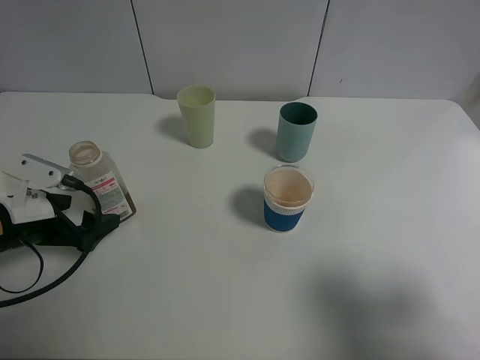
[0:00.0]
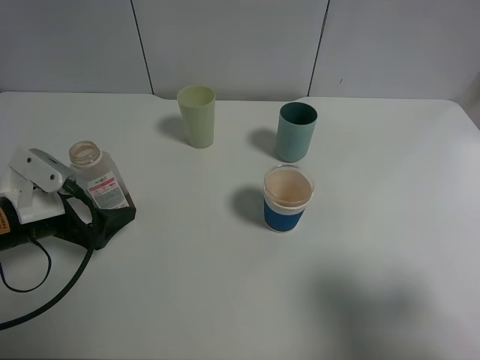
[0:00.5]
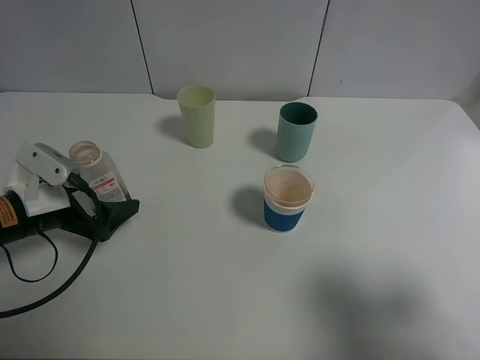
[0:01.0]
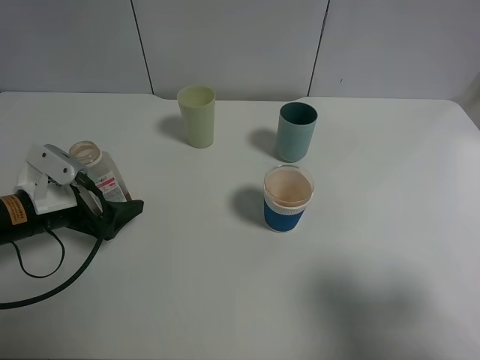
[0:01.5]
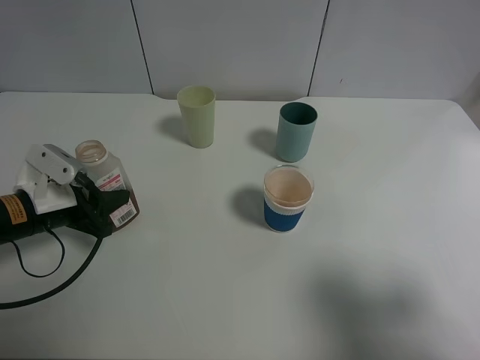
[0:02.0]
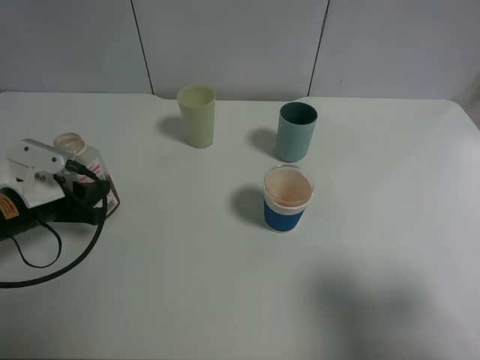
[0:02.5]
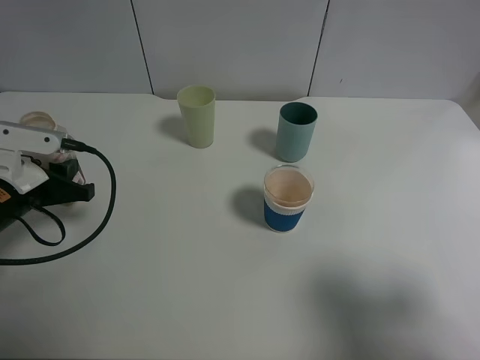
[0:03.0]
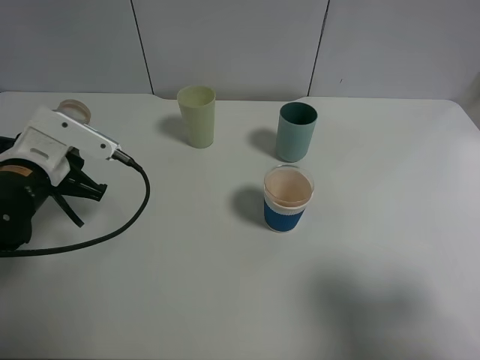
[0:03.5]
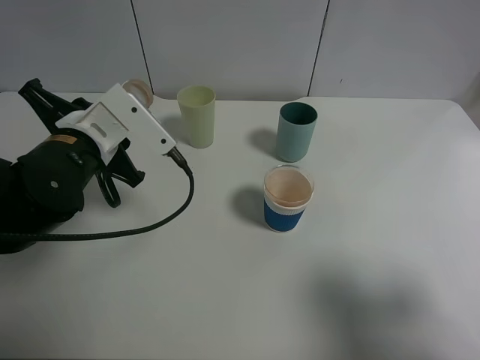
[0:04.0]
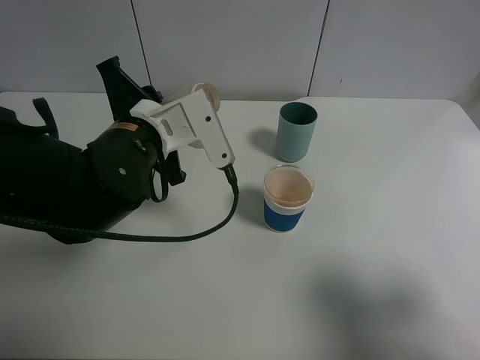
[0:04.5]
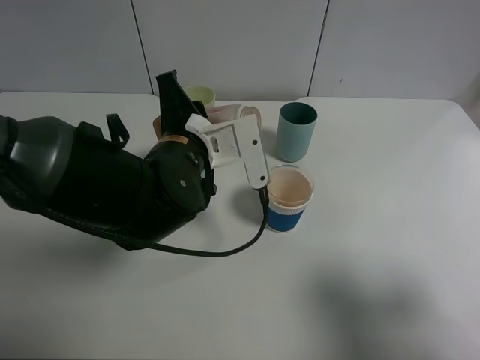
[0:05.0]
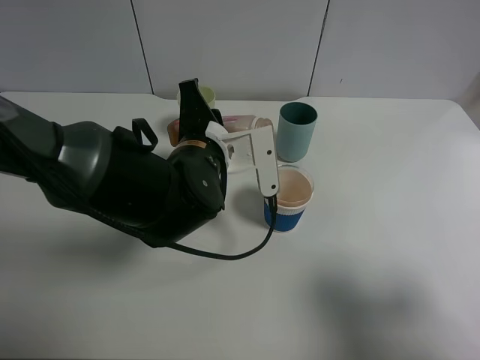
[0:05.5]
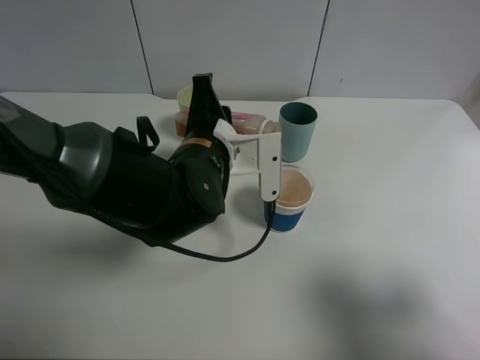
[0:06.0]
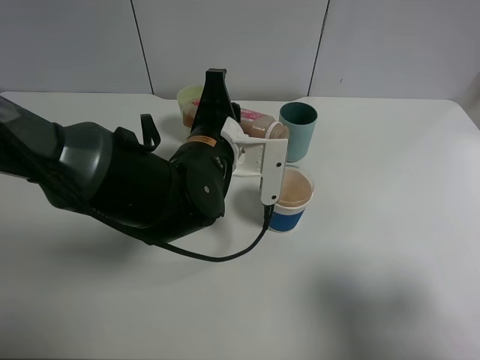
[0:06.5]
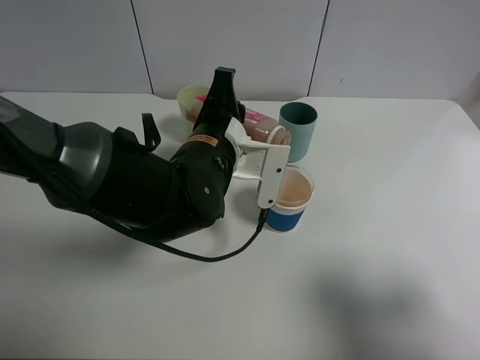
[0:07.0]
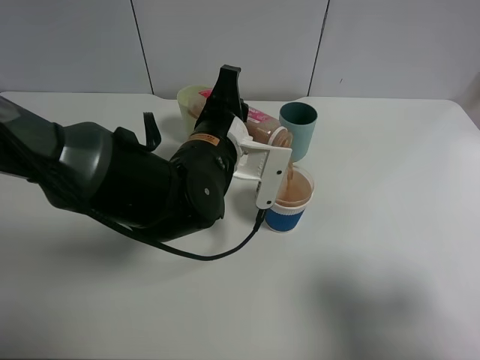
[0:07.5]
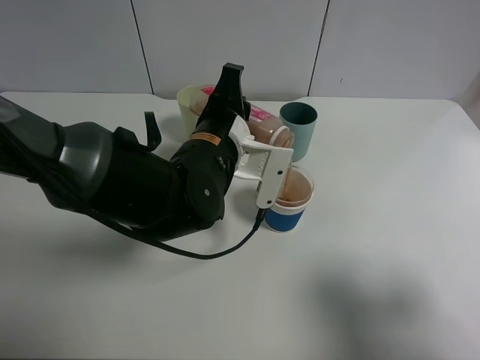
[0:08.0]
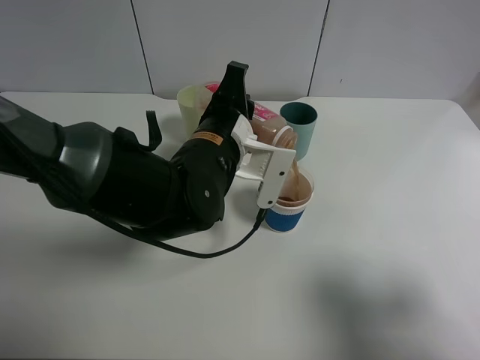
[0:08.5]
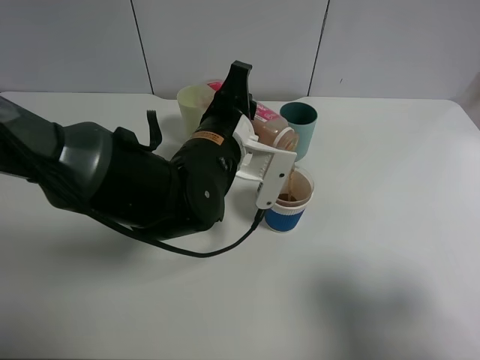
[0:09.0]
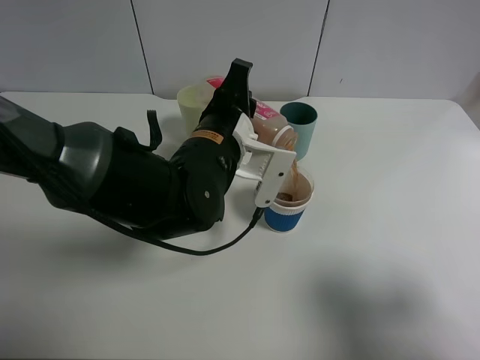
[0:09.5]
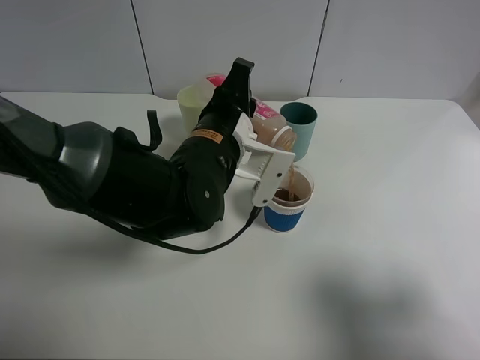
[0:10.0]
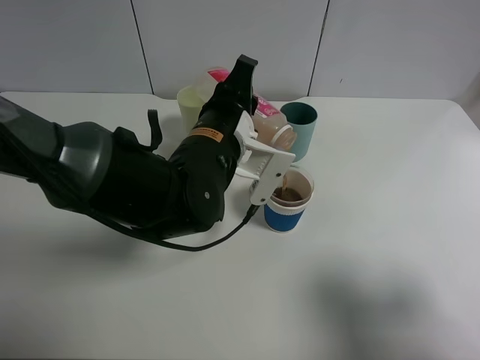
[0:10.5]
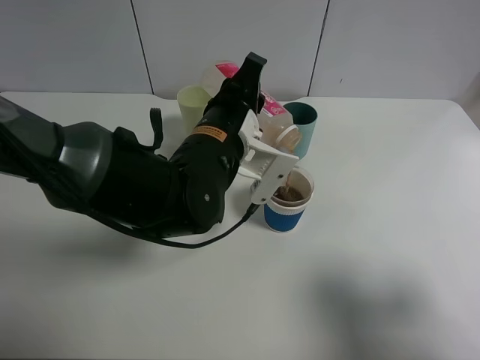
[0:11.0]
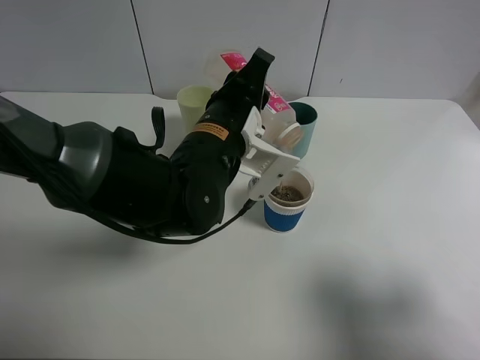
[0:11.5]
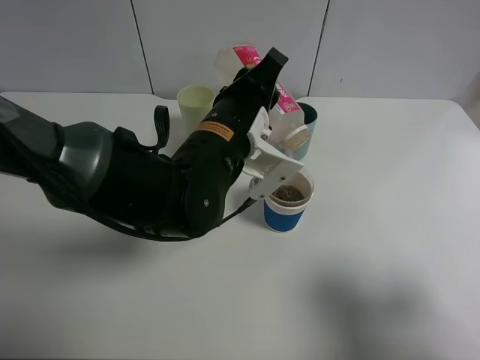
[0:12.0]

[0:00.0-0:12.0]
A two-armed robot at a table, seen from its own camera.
Task of the whole recording: use a clamp to hold the bottle of the drink, pour the beverage into a random cup, then clamp the cup containing the drink and pour the drink into another random cup.
Step, 0:00.0 to 0:02.0: Pick up the drink bottle with left gripper.
0:00.0 to 0:02.0: The left gripper closes up.
0:02.0 to 0:04.0: The left gripper heads to the right and upward, covering about 10 cm.
0:04.0 to 0:06.0: The left gripper moves to the right, roughly 15 cm.
0:06.0 to 0:08.0: The grippers move only a little.
0:08.0 to 0:10.0: The grippers move only a little.
0:10.0 to 0:12.0: There are only small adjustments of the grippers.

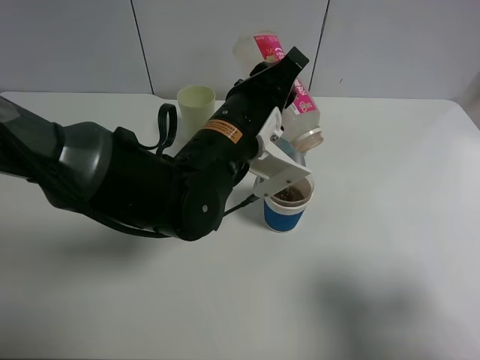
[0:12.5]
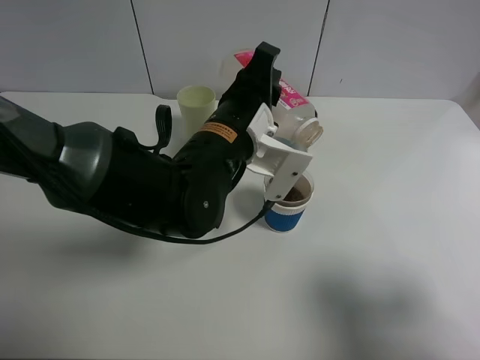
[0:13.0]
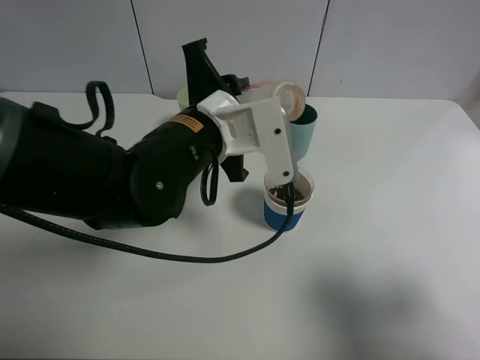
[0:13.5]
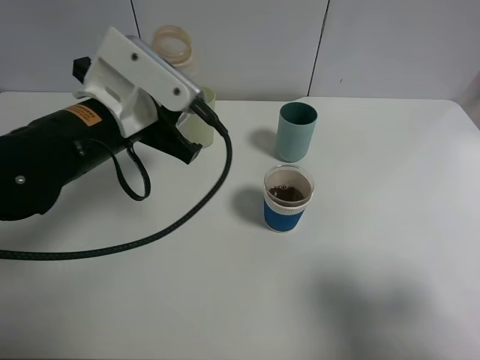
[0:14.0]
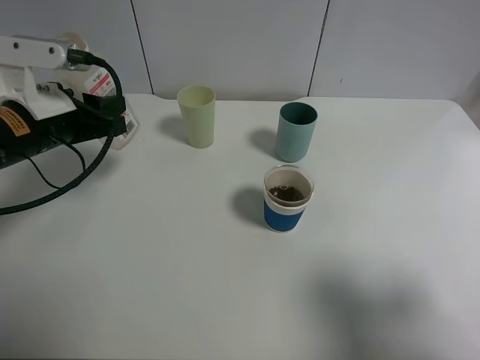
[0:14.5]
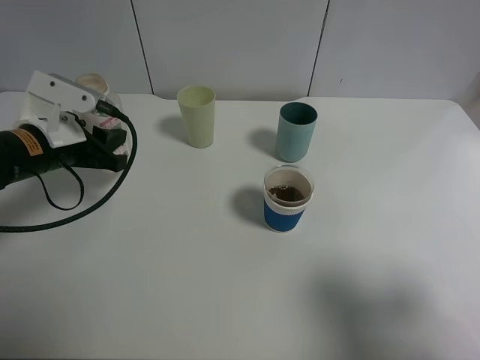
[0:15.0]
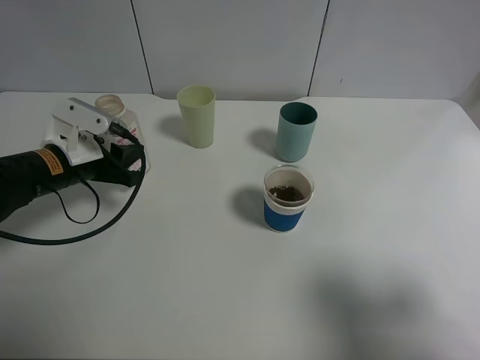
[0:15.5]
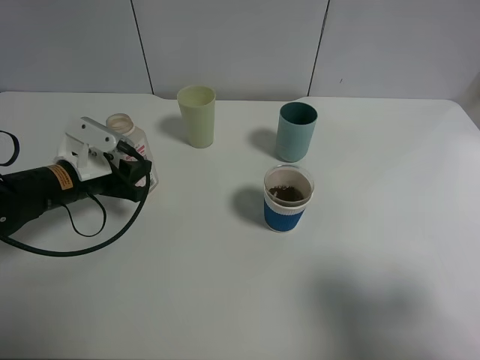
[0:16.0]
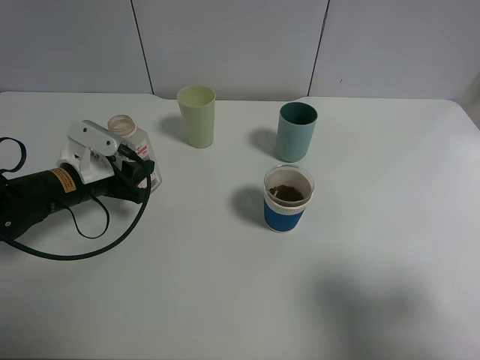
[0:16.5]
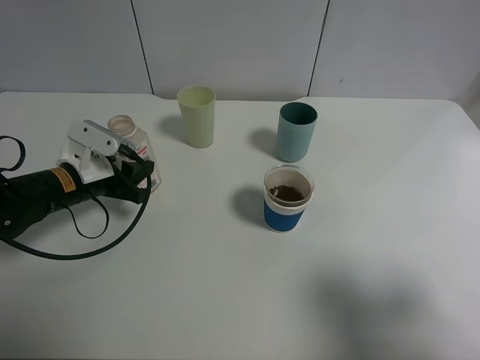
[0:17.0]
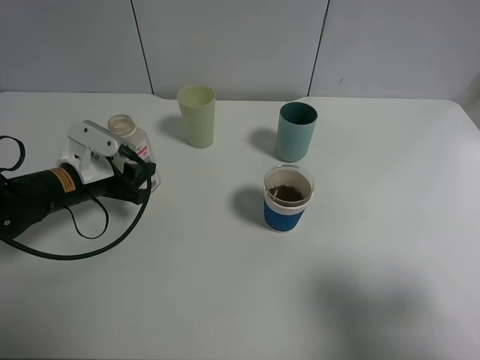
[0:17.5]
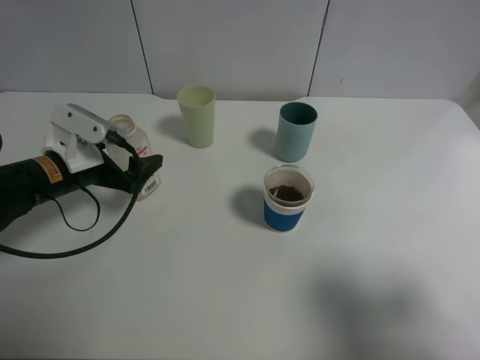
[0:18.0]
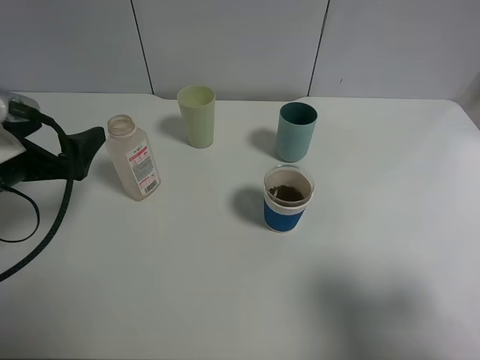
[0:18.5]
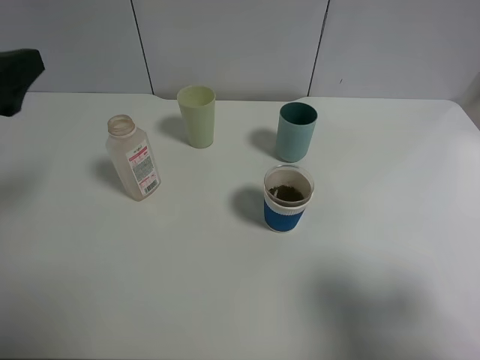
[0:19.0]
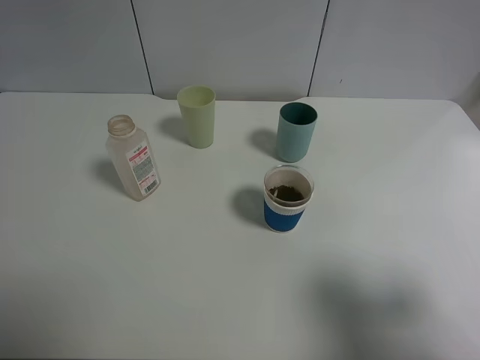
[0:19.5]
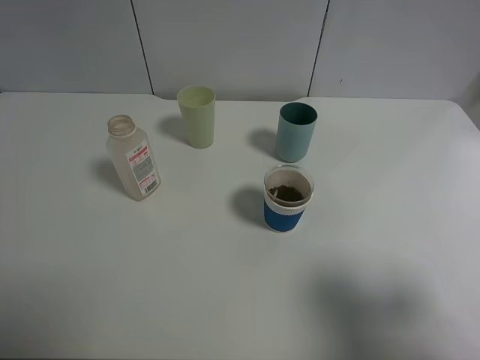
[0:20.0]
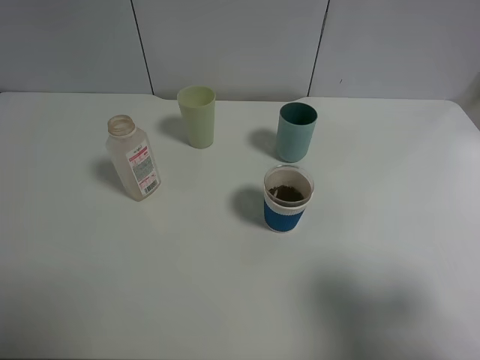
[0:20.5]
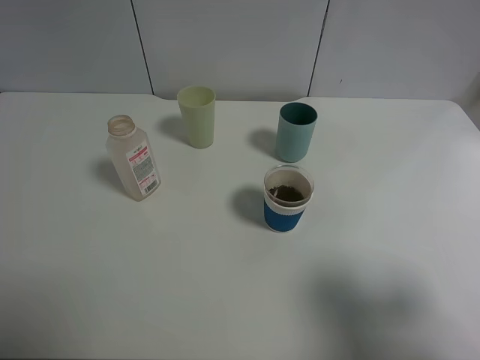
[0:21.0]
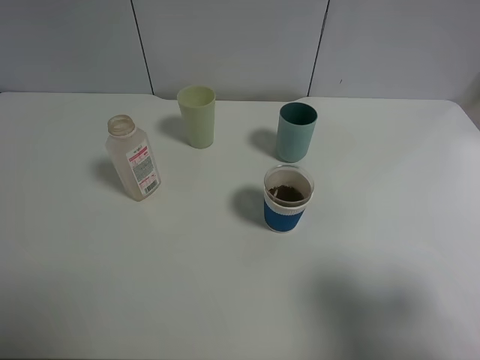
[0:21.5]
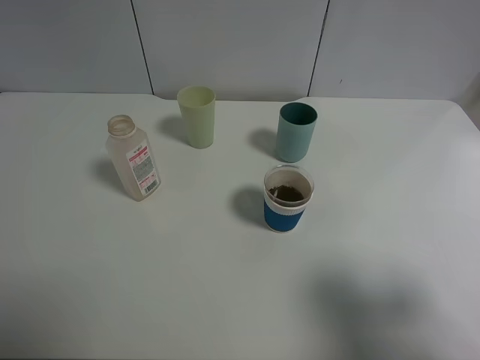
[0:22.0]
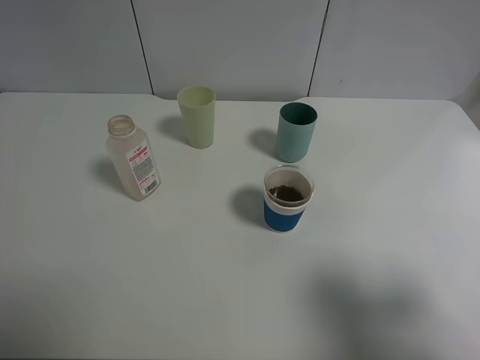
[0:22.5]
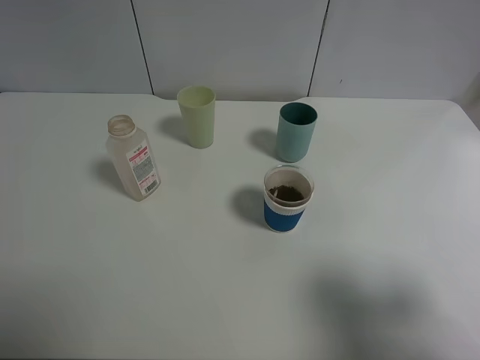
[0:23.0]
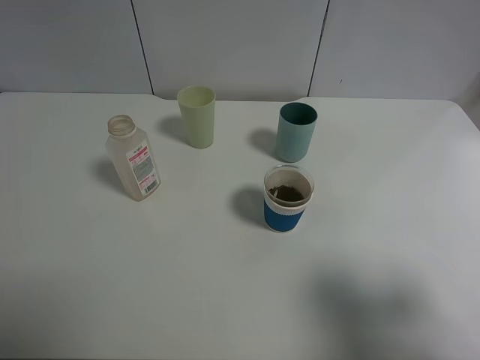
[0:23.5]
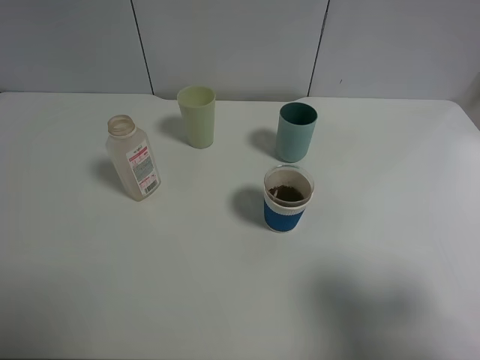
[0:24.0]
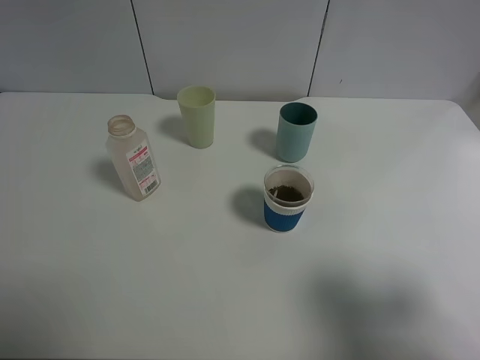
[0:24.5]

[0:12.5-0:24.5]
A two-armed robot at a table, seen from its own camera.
Task of the whole recording: use a clamp to hold the bottle of the drink, pour the beverage into a random cup, then clamp the cup containing the drink and pour the drink into another random cup.
Step, 0:13.5 to 0:17.5: Place the drink bottle on the table with left gripper.
0:12.5 to 0:14.5: The left gripper shifts approximately 20 cm to the left.
0:14.5 to 0:16.5: The left gripper moves downward, about 10 cm.
0:16.5 to 0:18.5: The left gripper heads upward and backward, covering approximately 15 cm, and opens up.
0:18.5 to 0:20.5: The left gripper shifts roughly 25 cm backward and upward.
0:22.5 to 0:24.5: Both grippers stay put.

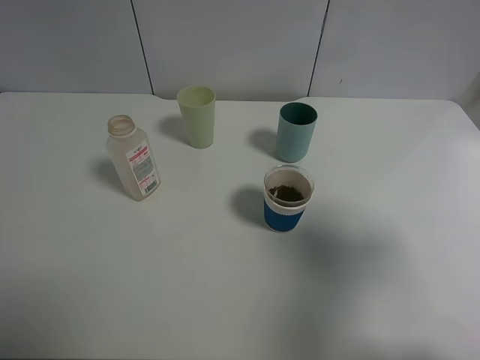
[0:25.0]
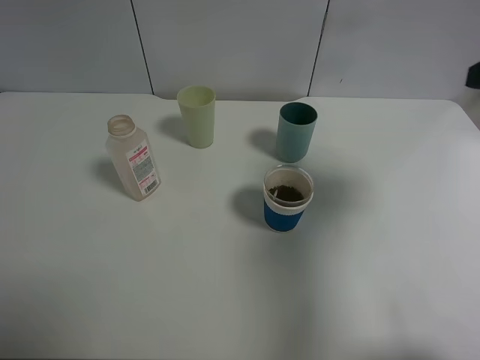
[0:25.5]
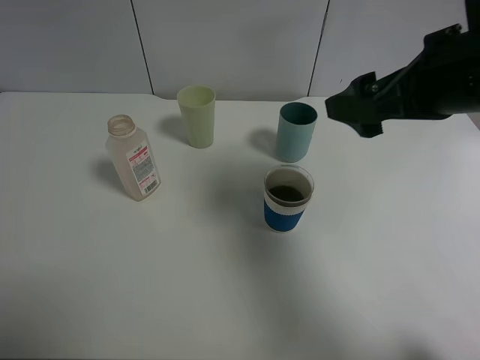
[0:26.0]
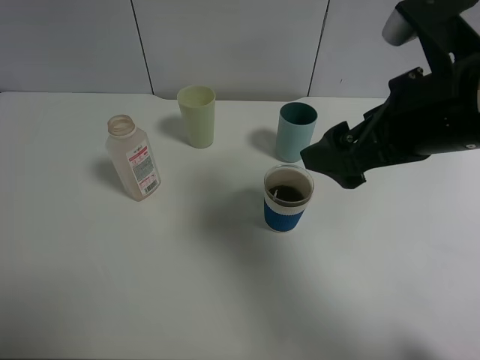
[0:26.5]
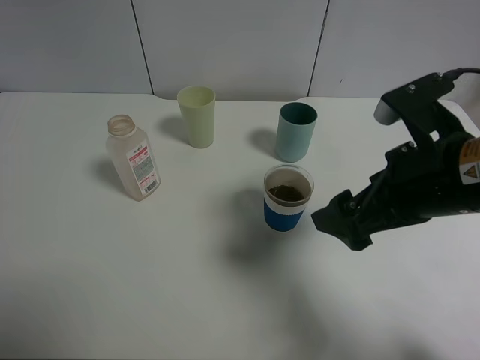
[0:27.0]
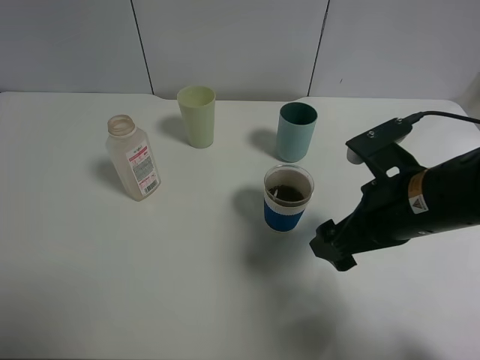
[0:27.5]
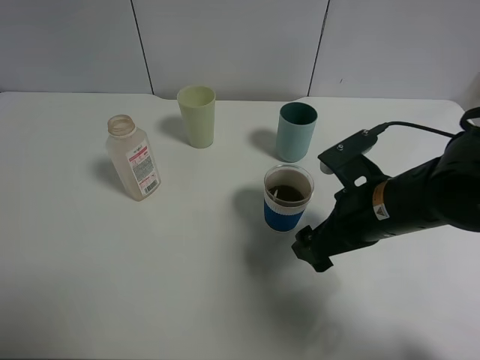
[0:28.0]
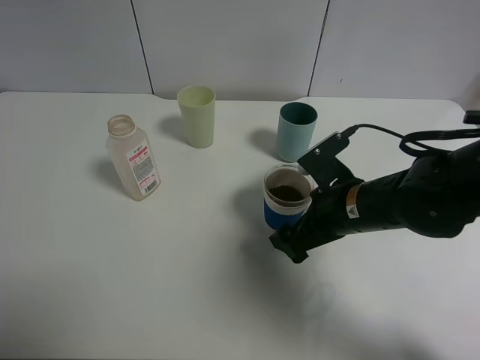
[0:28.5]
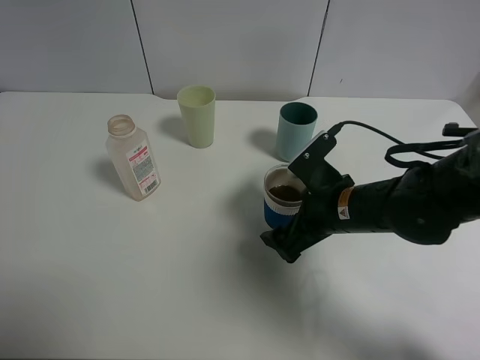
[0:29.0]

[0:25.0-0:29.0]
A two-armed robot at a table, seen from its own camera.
Task of the whole recording: use a clamp to hold the bottle of the drink, pour the beverage into a random cup, then clamp the cup containing the drink and pour the drink into another random cup.
0:25.0 to 0:27.0: The right gripper is displaced to the left, downward and forward by some 15 cm.
0:27.0 to 0:29.0: The right gripper travels downward and forward by roughly 15 cm.
